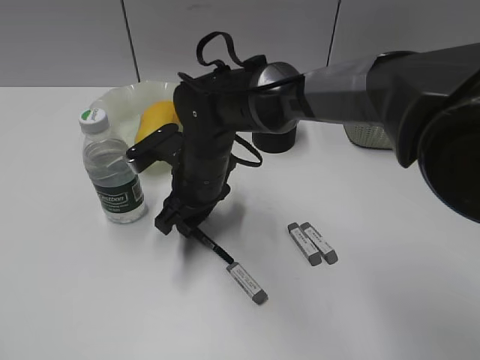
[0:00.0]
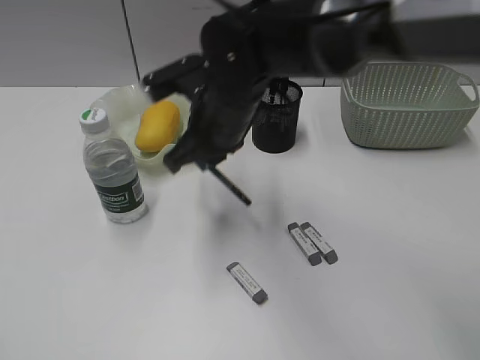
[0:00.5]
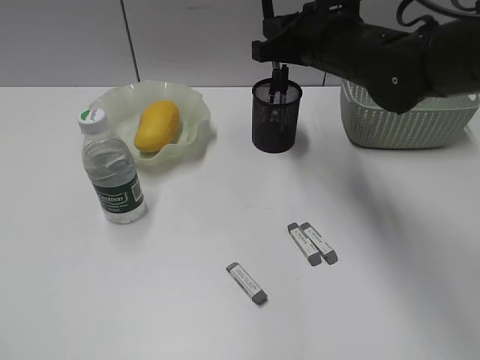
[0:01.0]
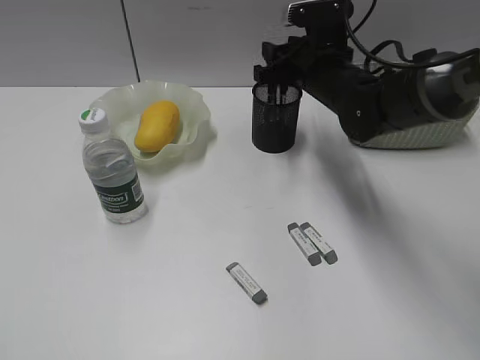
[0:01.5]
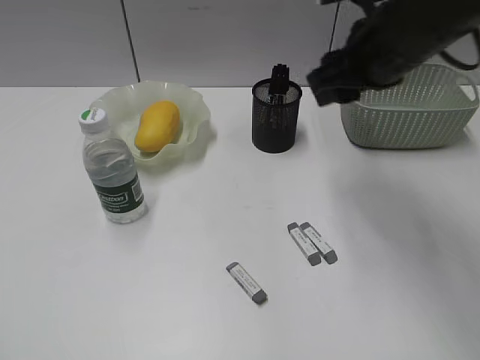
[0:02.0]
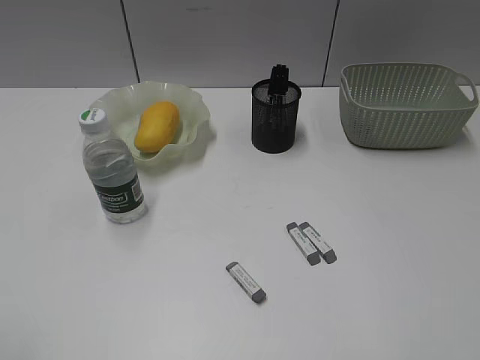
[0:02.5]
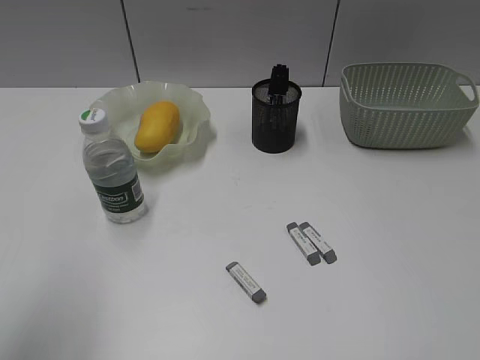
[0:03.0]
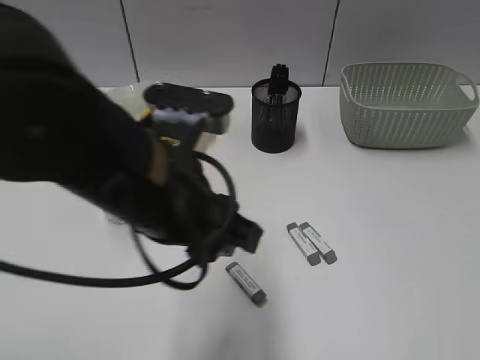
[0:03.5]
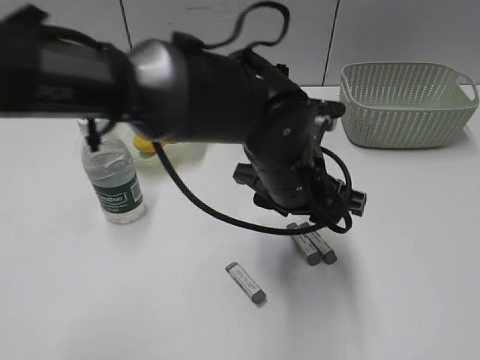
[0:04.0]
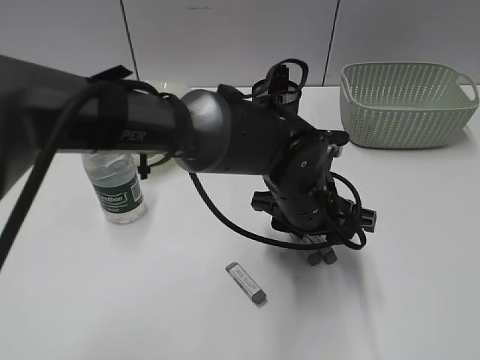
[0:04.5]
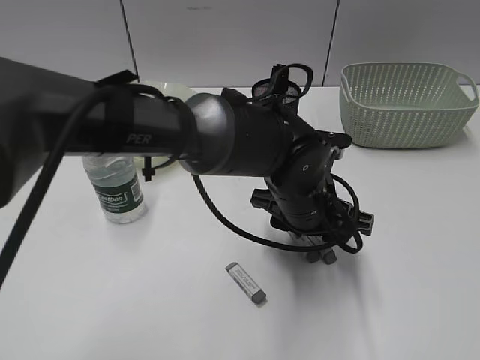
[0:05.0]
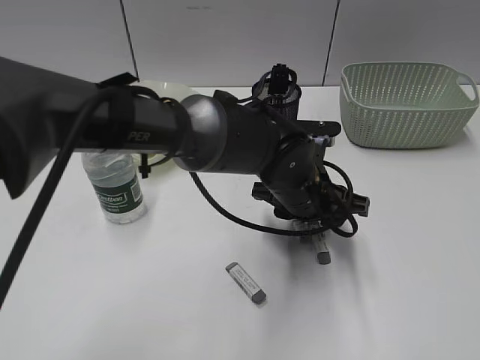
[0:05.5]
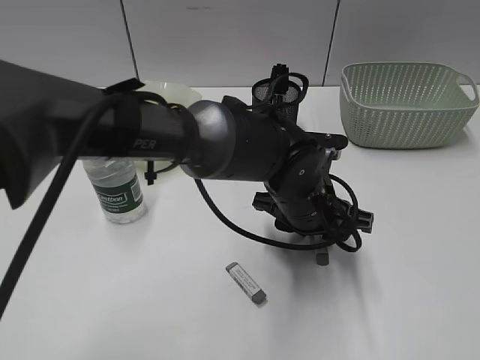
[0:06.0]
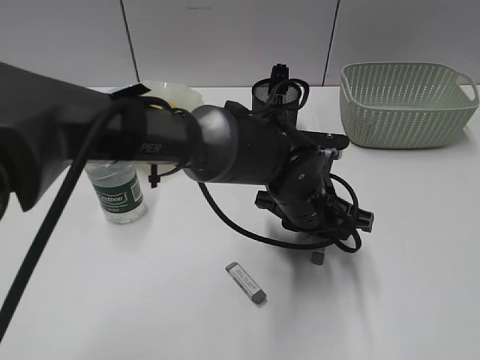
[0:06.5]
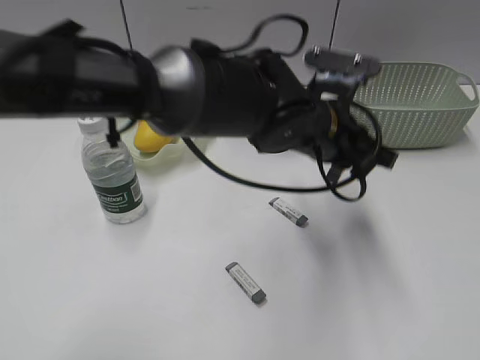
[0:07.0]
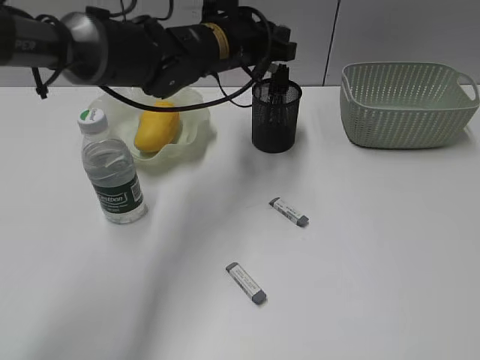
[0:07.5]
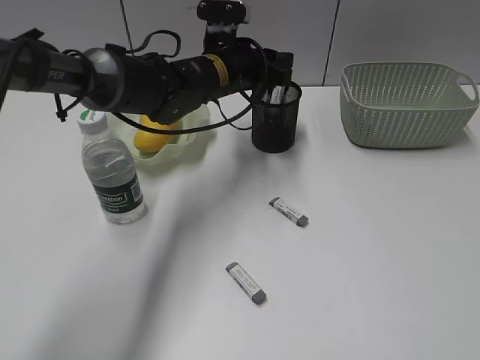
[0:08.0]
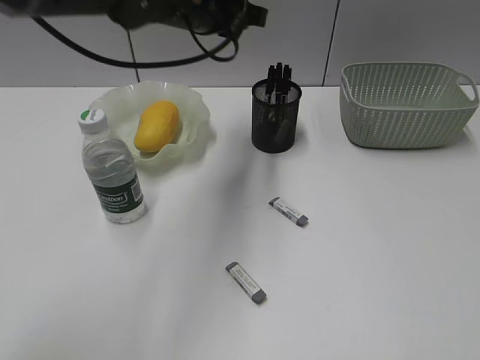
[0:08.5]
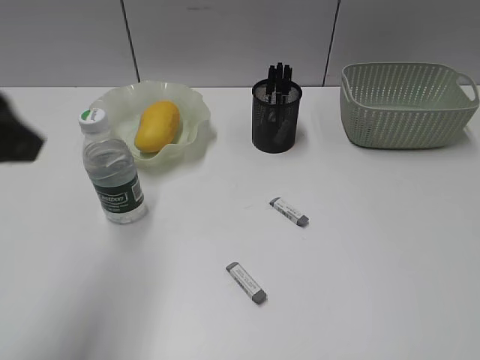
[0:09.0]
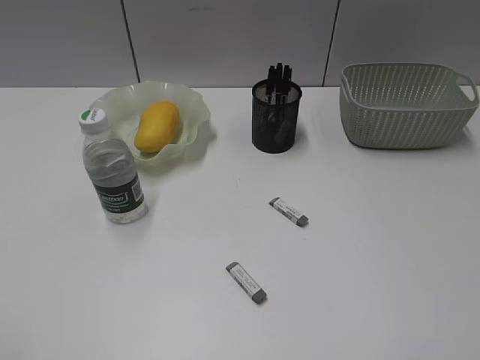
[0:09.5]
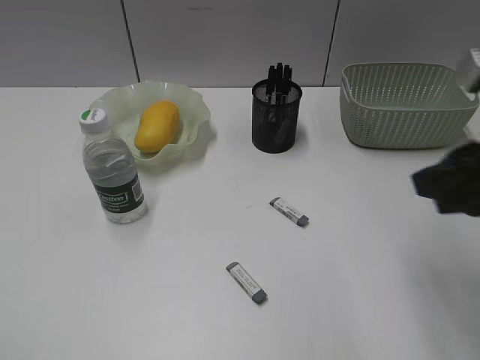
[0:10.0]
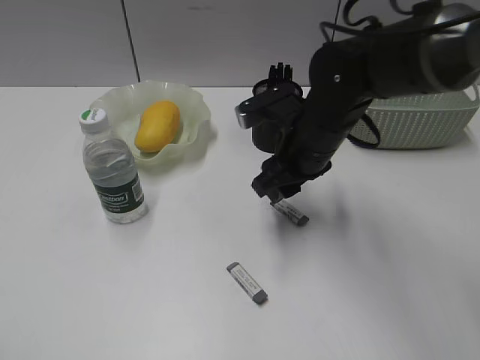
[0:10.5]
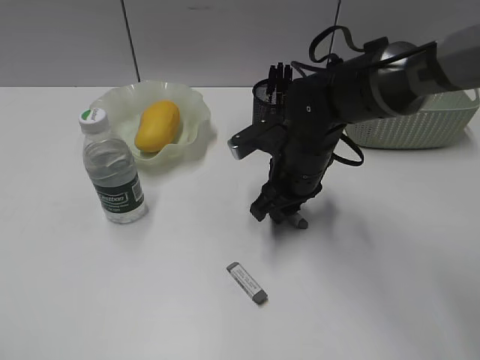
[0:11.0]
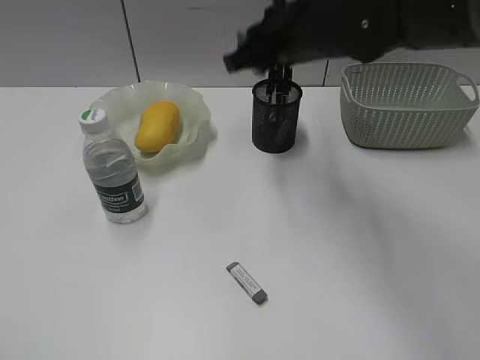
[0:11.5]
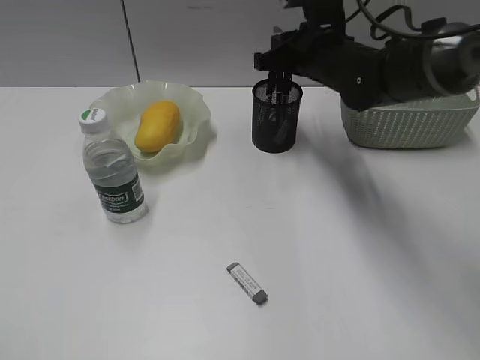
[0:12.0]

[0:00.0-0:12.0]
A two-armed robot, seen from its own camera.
Step, 0.5 to 1.5 s: Place the black pen in pen holder with right gripper.
Step, 2.0 to 6.5 s: Grasp the eraser with left gripper.
Step, 7.0 to 8.0 s: Place the eraser in pen holder with left gripper.
Step, 8.5 to 11.0 s: Grasp the eraser with right gripper.
0.0 to 2.0 s: The right gripper travels to the right and upward by approximately 25 cm, and closes, then reopens.
2.0 to 4.0 s: The left gripper is displaced to the right and forward by approximately 50 cm. The right gripper heads backward and to the right, covering about 35 cm.
4.0 to 6.0 s: The left gripper goes some 5 cm downward.
6.0 to 8.0 s: The left gripper heads forward and to the left, covering some 20 cm, and closes and opens again.
8.0 to 10.0 s: The left gripper moves backward and to the left, some 50 cm. Meanwhile the right gripper heads forward and to the left, covering approximately 25 cm.
10.0 to 12.0 s: The right gripper goes about 25 cm forward and to the left.

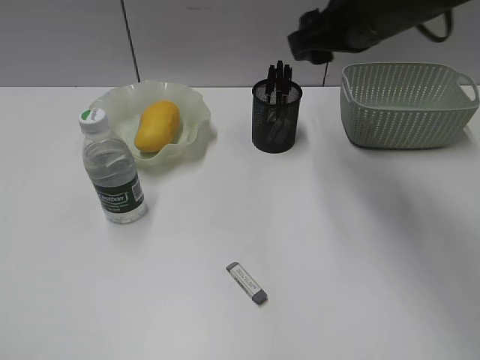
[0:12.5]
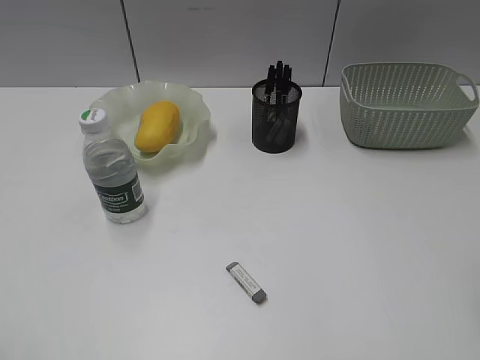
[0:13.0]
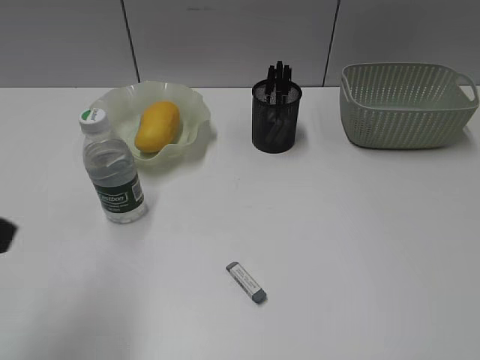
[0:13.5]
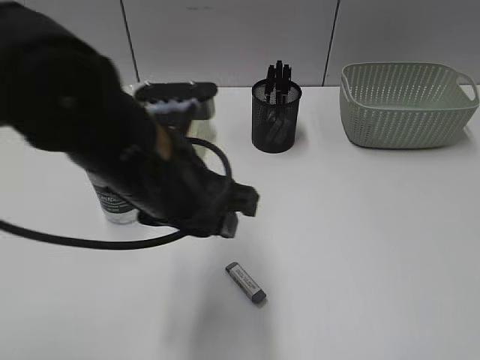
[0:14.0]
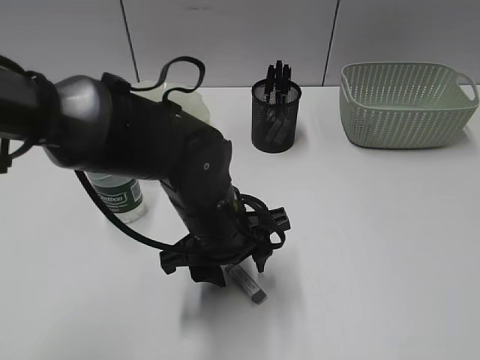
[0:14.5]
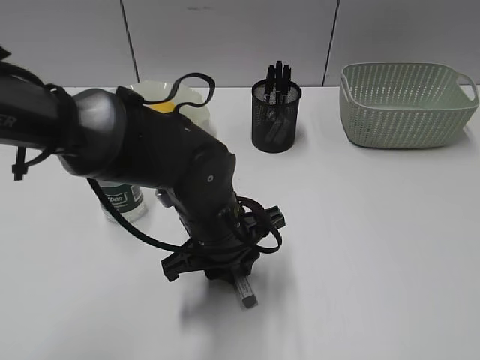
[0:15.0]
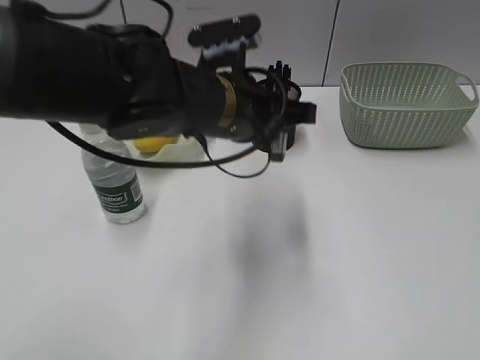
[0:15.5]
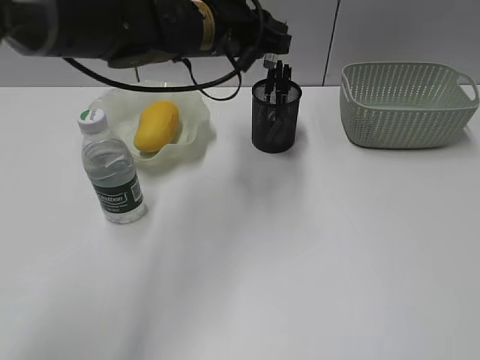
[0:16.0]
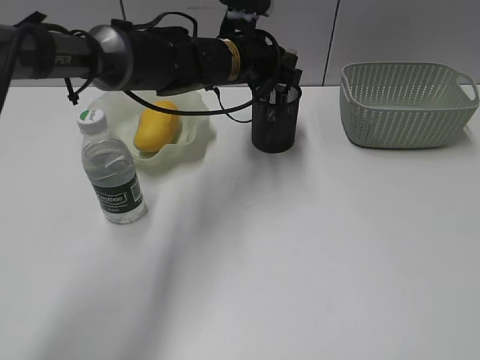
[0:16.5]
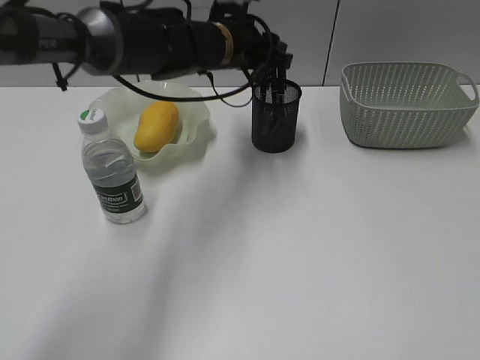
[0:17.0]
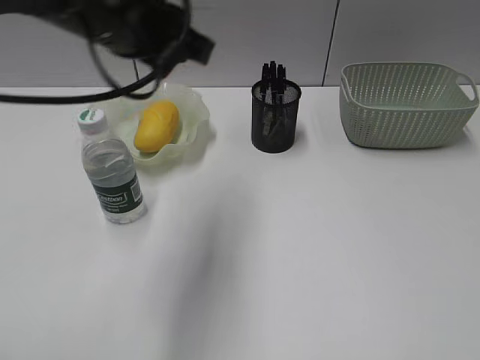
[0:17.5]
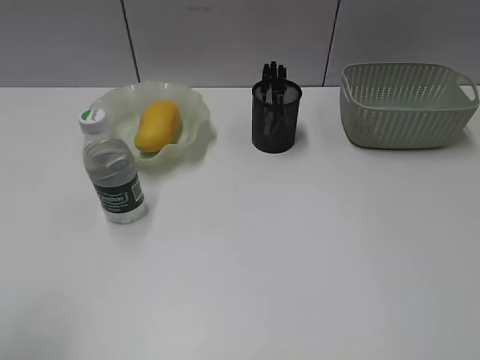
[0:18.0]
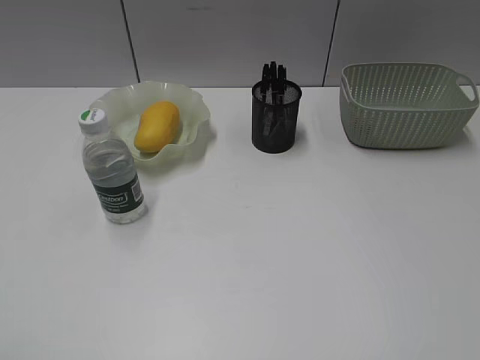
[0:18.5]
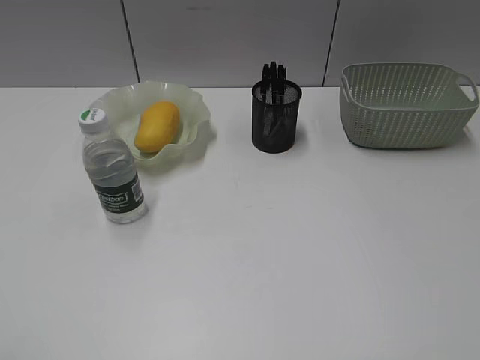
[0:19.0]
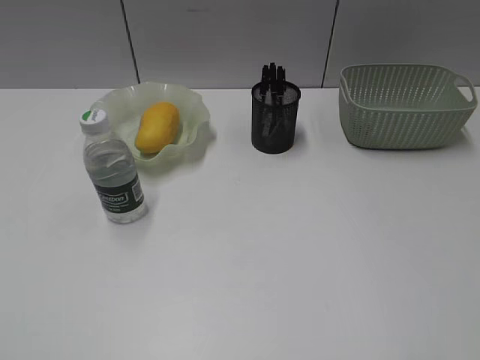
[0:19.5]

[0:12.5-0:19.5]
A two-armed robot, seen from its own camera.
Step, 12.5 to 15.0 s: Grasp the eraser with left gripper.
Step, 15.5 to 17.0 s: Place the eraser in pen holder with left gripper.
12.5 to 14.5 s: The right gripper moves backward and to the right, approximately 40 cm; the left gripper heads to the right, forward and downward, covering some 40 cm.
14.5 to 16.0 s: The left gripper is displaced forward and upward by some 20 cm, and closes its fingers.
16.0 to 17.5 s: The left gripper is displaced backward, to the left and upward by roughly 15 cm.
17.5 to 19.5 s: The left gripper shifts some 35 cm backward and to the left.

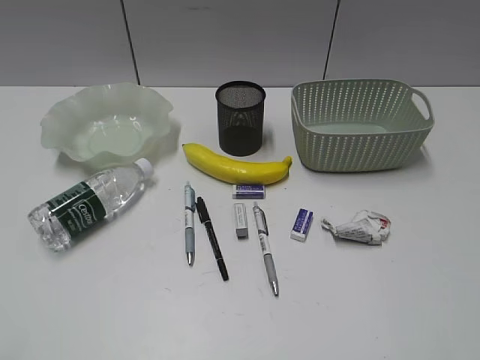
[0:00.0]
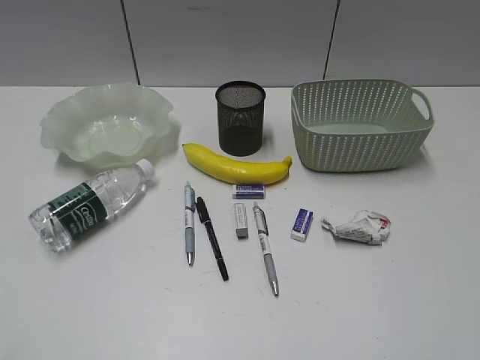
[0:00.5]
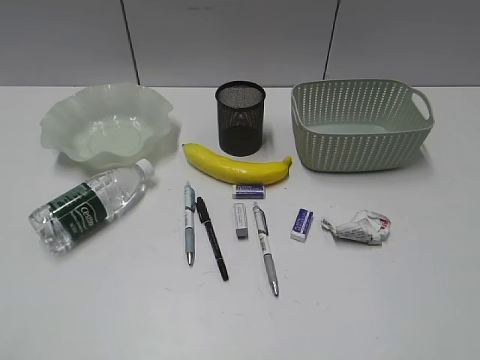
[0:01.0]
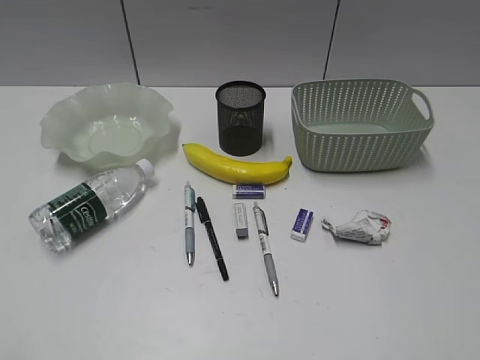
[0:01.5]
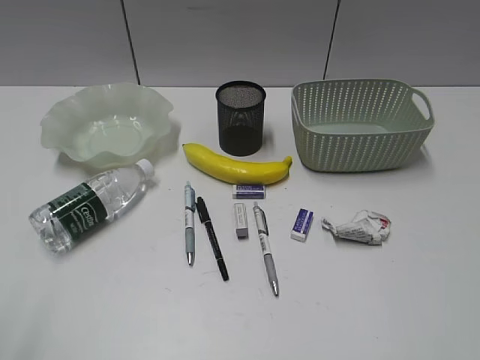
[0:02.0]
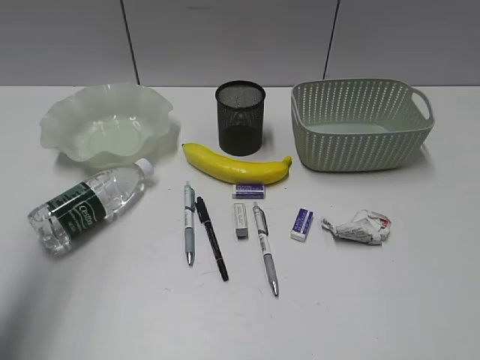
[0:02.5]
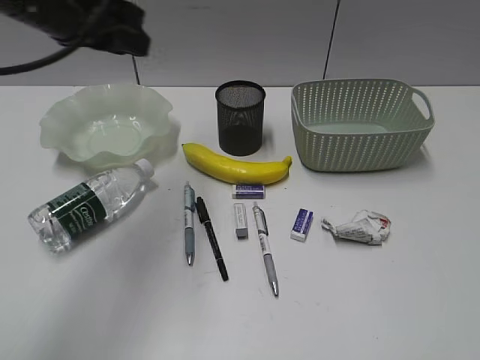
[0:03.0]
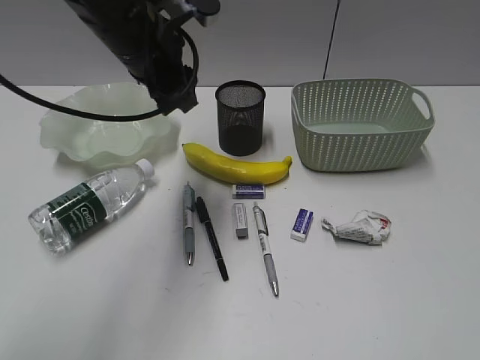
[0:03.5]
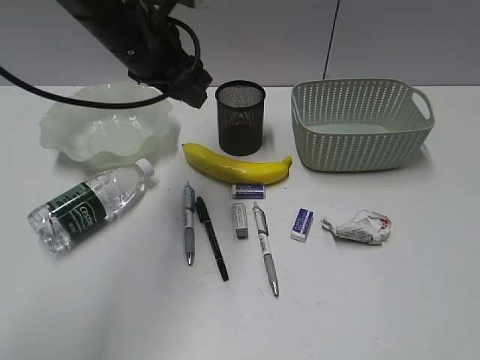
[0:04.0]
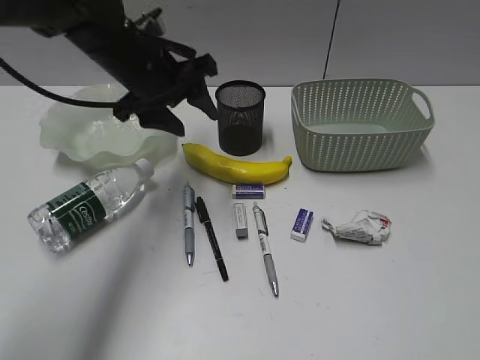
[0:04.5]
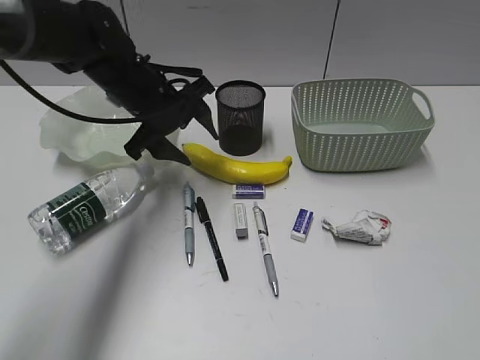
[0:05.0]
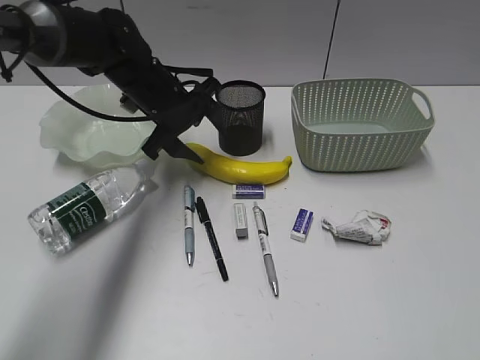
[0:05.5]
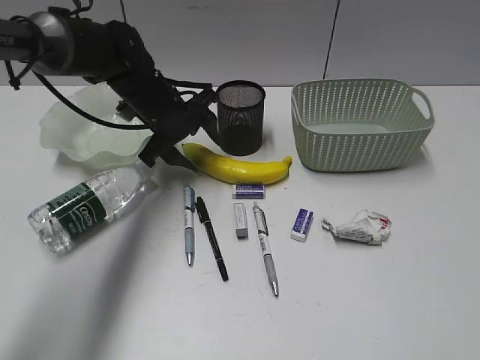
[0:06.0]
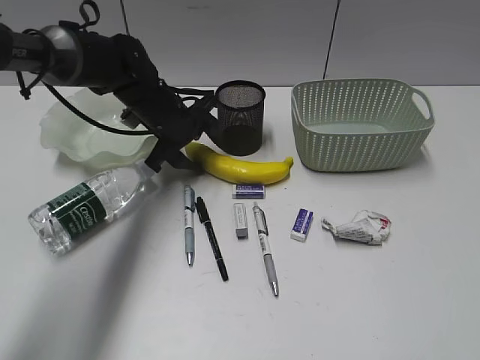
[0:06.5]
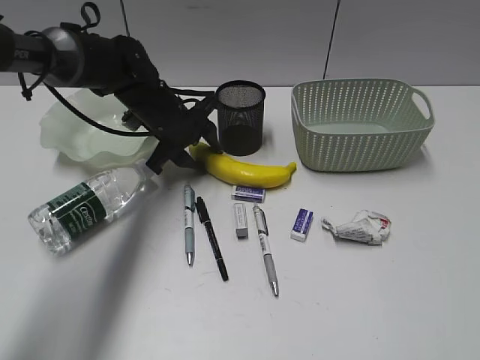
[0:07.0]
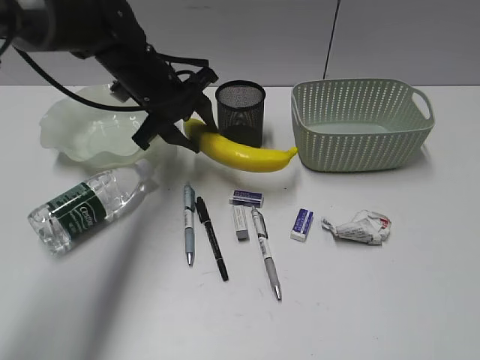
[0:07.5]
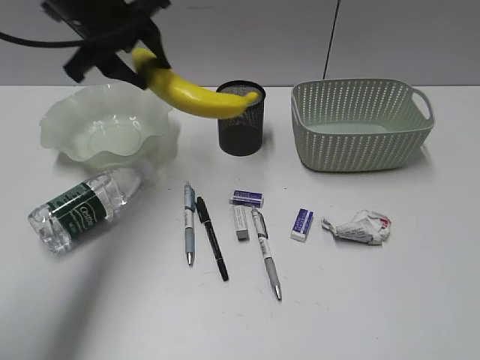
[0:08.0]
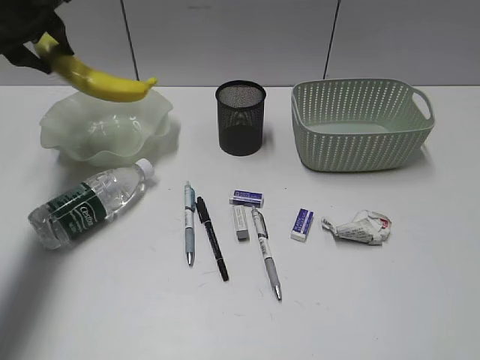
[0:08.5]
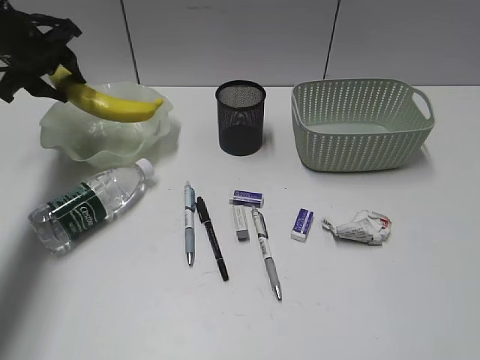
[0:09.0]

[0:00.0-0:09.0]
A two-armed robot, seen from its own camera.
Step, 1.5 to 6.5 s: Grasp the banana with left gripper.
2.0 to 4.5 s: The left gripper shifts about 40 cm forward and to the right, and opens.
4.5 to 7.0 s: The left gripper heads downward, covering about 10 cm.
7.0 to 9.0 s: The left gripper is displaced to the left and upward by roughly 20 cm.
